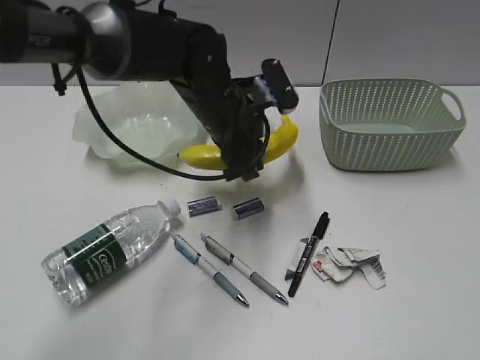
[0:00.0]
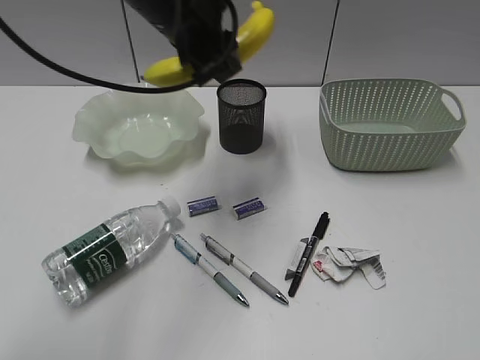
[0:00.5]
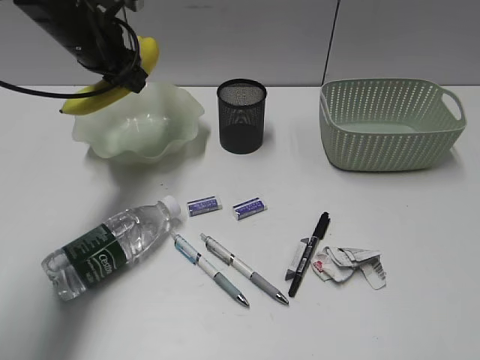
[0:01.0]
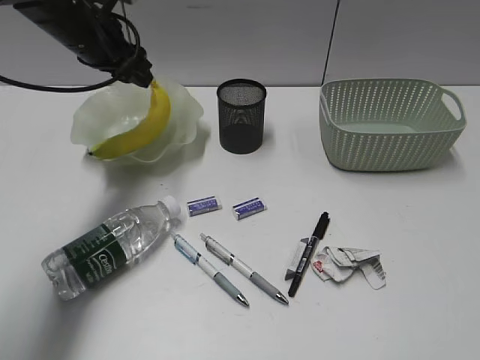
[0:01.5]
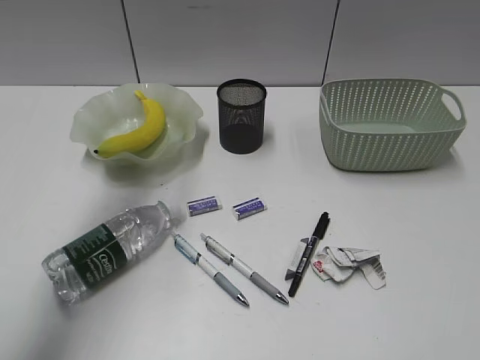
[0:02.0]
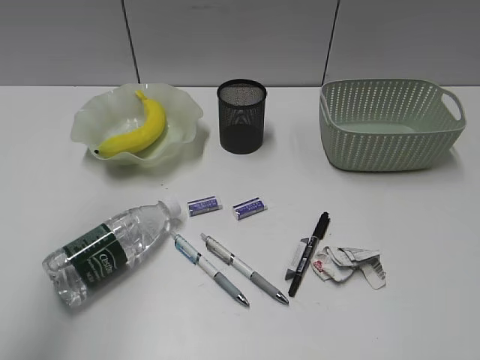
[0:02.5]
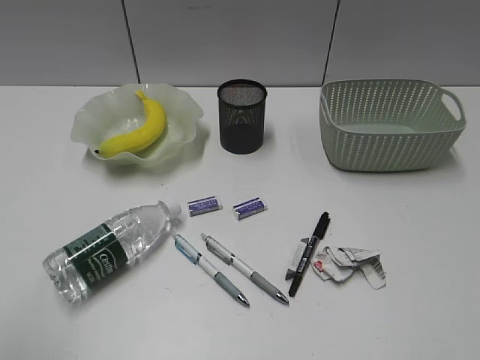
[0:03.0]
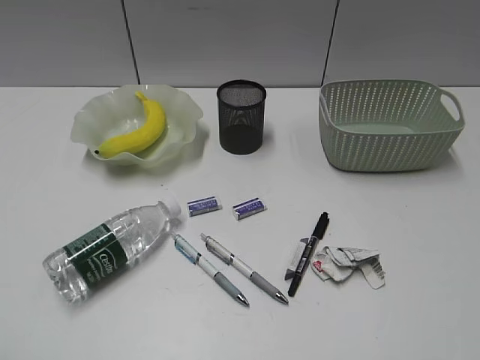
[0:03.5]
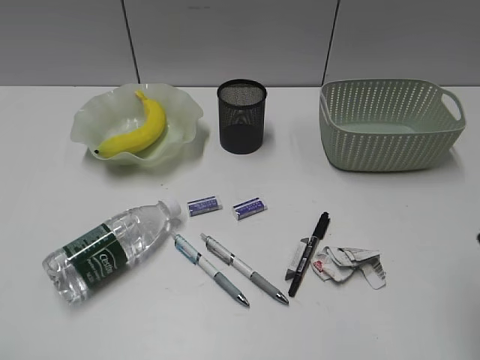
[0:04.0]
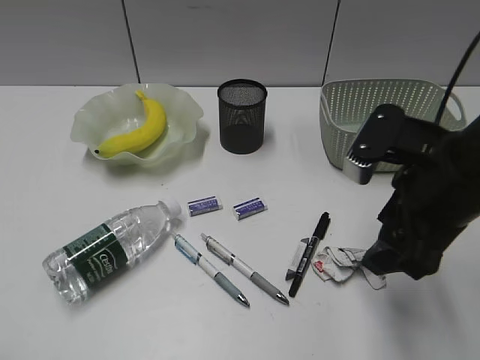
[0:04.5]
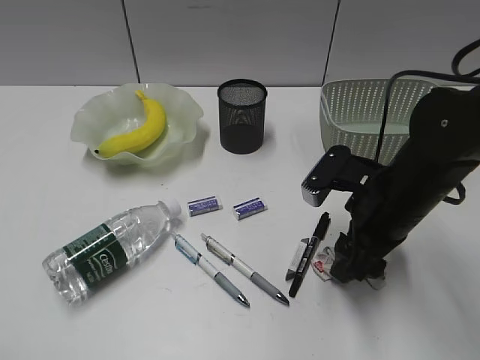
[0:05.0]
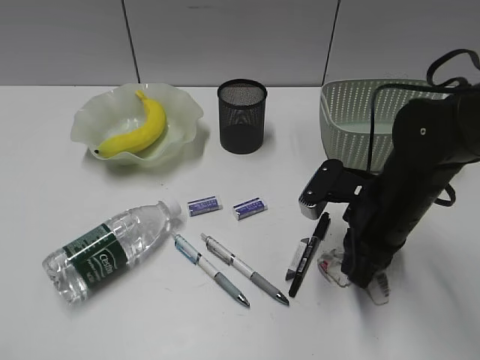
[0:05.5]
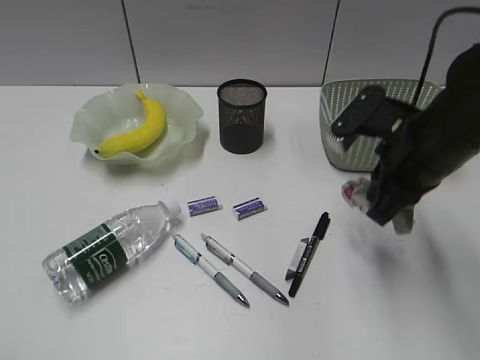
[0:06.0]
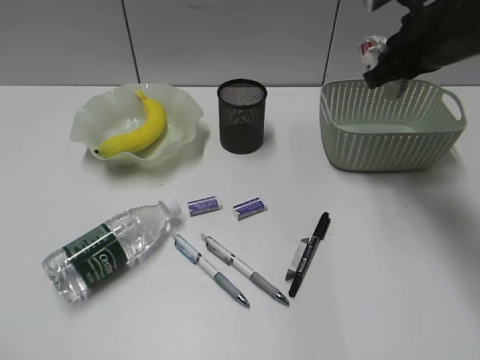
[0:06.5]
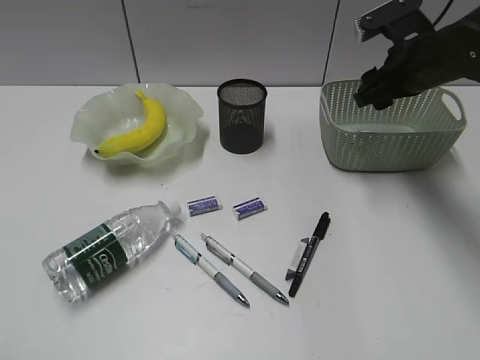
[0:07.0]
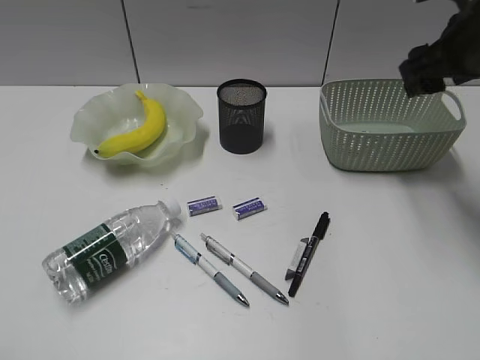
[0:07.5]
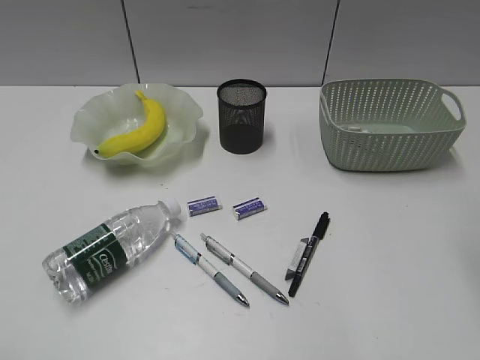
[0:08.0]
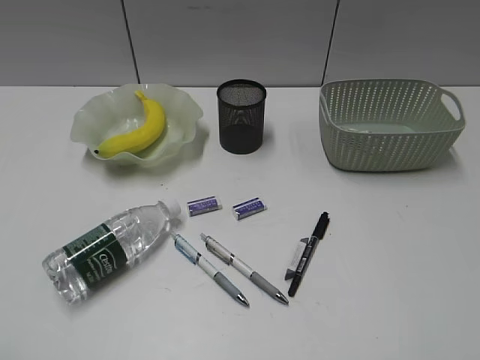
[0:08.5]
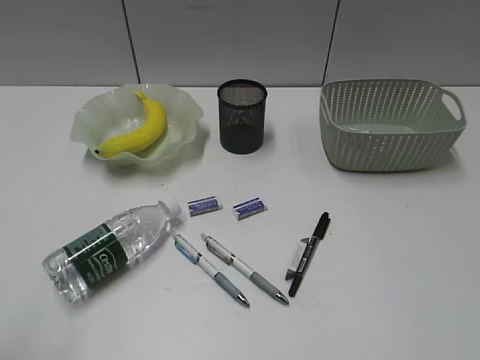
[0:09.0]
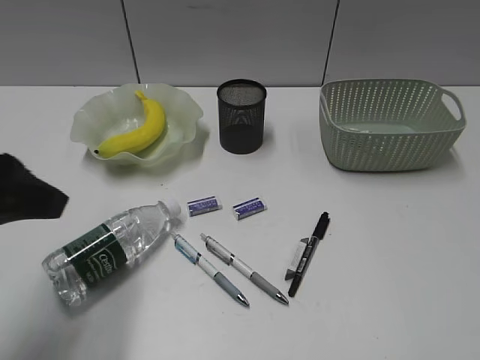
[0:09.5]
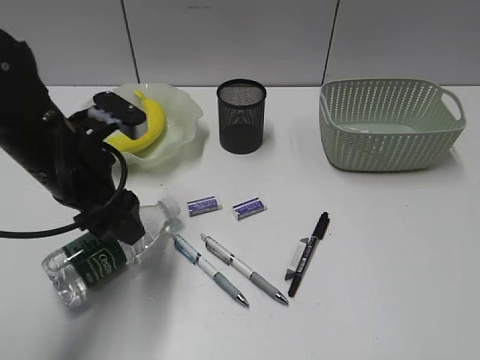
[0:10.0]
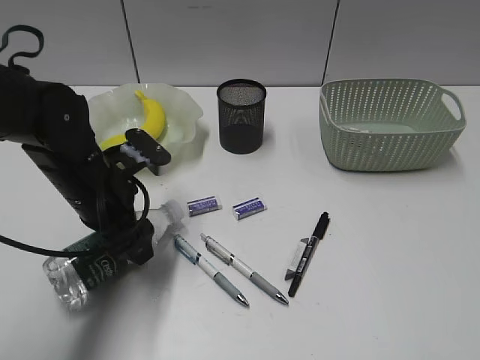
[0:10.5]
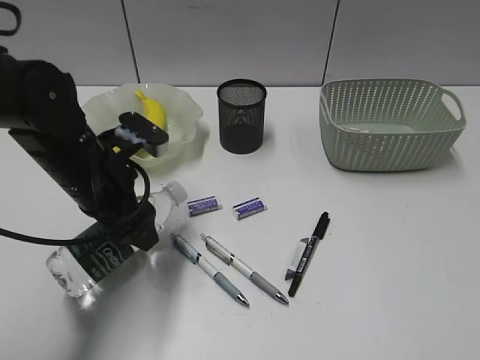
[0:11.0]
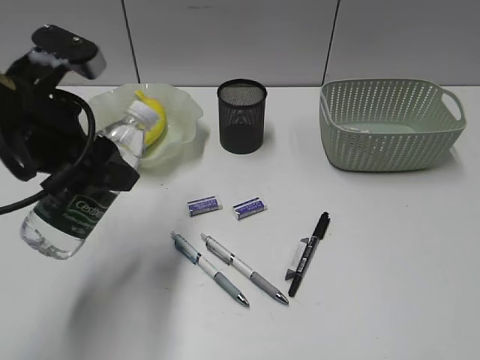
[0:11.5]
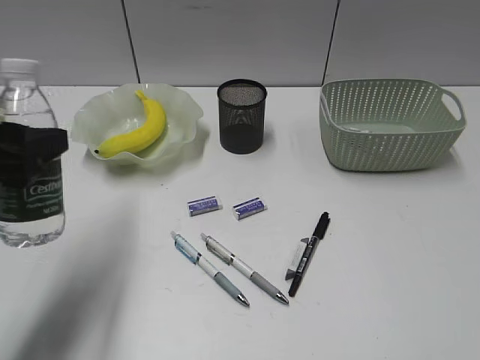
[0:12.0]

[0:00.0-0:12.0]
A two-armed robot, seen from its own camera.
Step, 0:00.0 to 0:01.0: Place the banana in the plate with left gripper.
Step, 0:01.5 to 0:05.5: Grasp the waste paper with right gripper.
Step, 0:06.0 to 0:07.0: Place the waste paper in the basket with right gripper.
Step, 0:07.5 to 0:10.5: Grasp the bottle with left gripper.
0:00.0 to 0:02.0: The left gripper goes up and down, approximately 20 cm each way, reversing 2 times.
0:02.0 to 0:04.0: The left gripper moves backward, about 40 cm, while the right gripper shifts about 15 cm forward and to the left, and opens up.
0:04.0 to 0:06.0: The right gripper travels forward, downward and to the left by approximately 20 cm, and closes up.
0:06.0 to 0:08.0: The right gripper is displaced upward and to the right by roughly 20 cm, moves about 15 cm forward and comes back, and opens up.
0:08.0 to 0:10.0: The right gripper goes roughly 20 cm backward. Meanwhile the left gripper travels forward and to the right by about 30 cm.
0:10.0 to 0:12.0: The left gripper shifts about 10 cm backward and to the left.

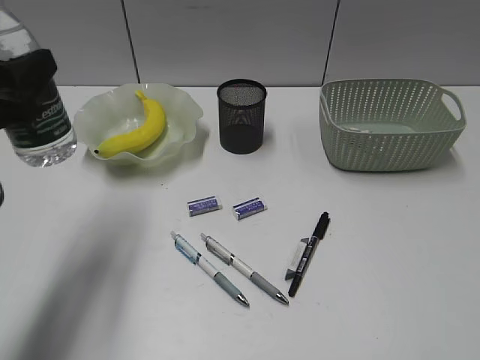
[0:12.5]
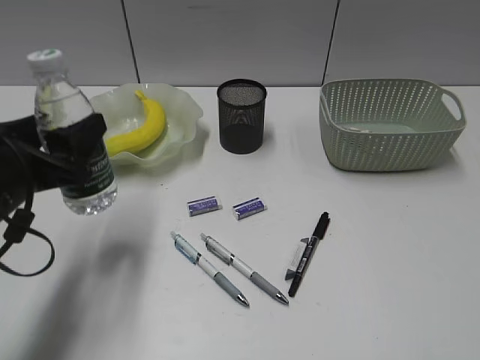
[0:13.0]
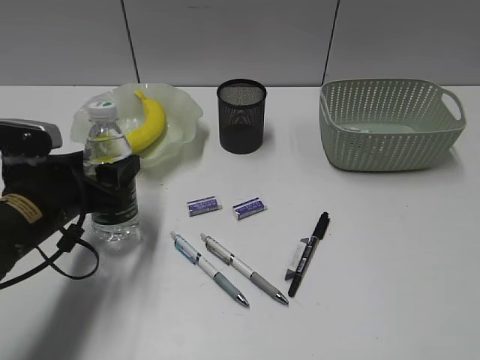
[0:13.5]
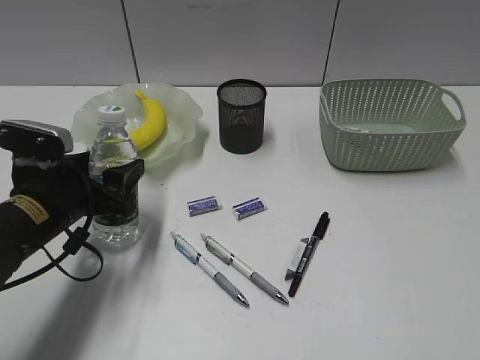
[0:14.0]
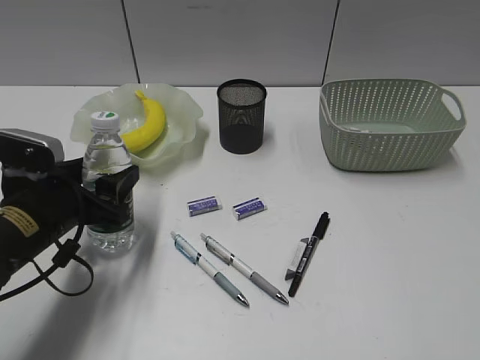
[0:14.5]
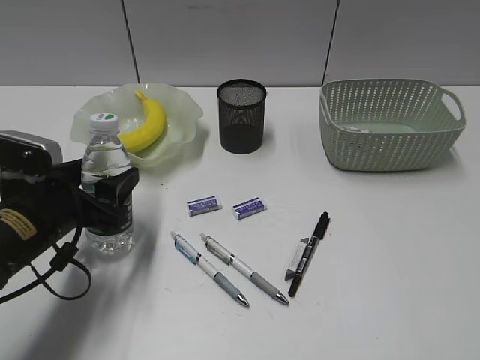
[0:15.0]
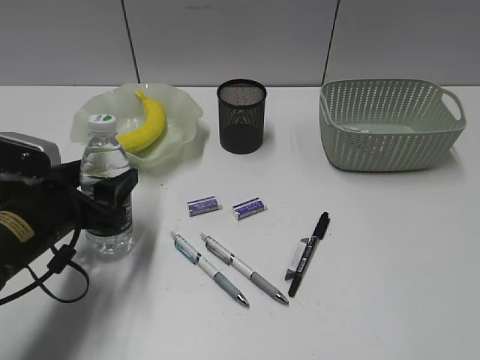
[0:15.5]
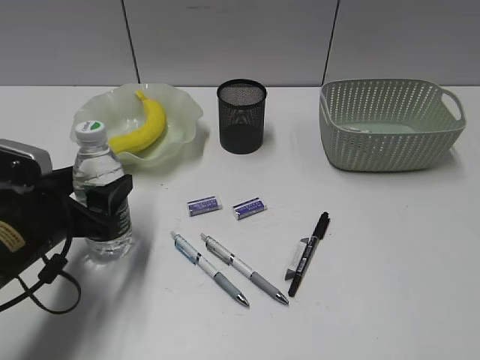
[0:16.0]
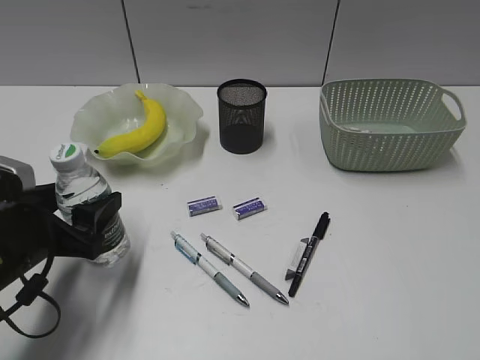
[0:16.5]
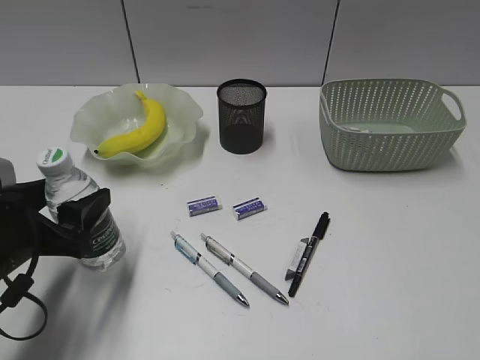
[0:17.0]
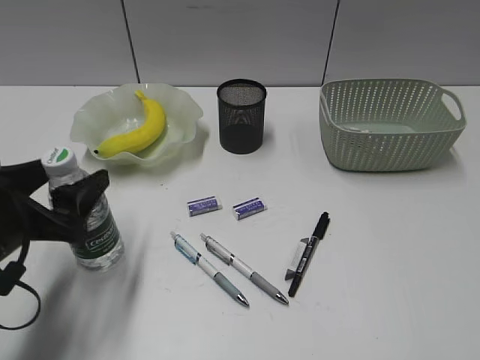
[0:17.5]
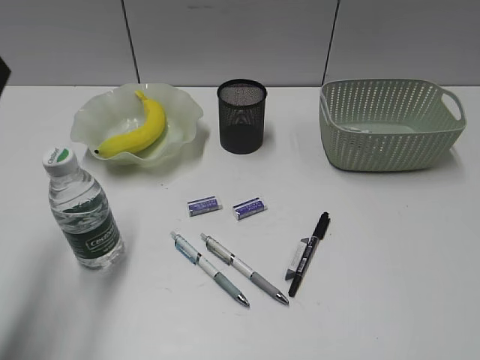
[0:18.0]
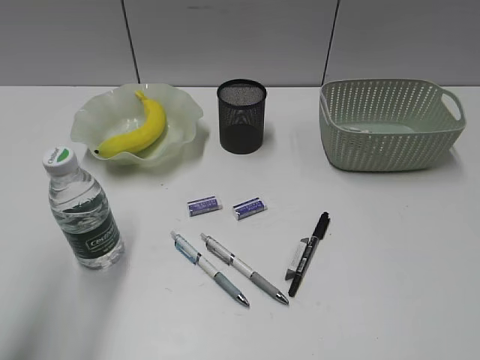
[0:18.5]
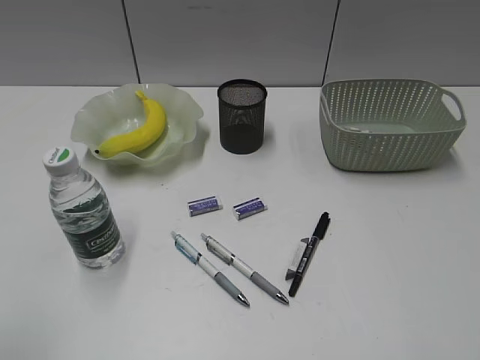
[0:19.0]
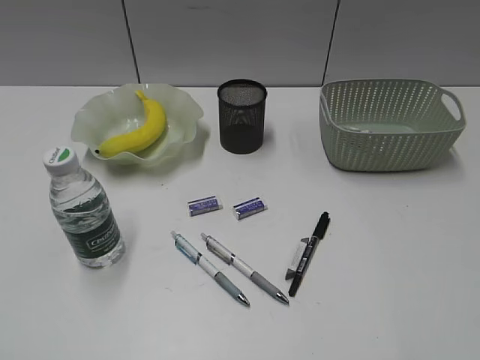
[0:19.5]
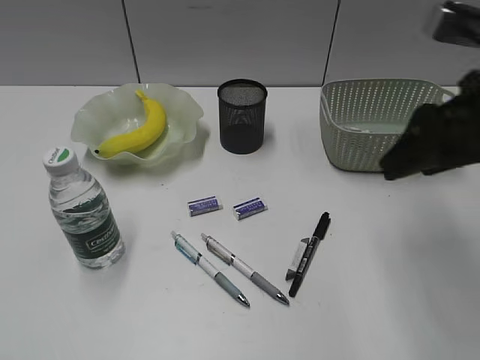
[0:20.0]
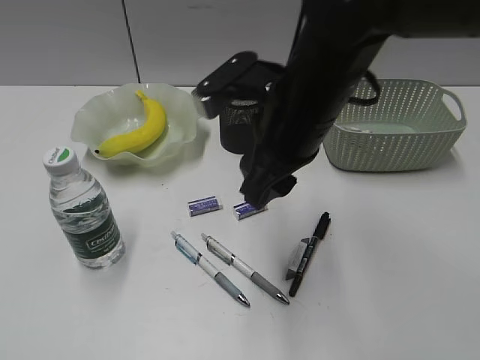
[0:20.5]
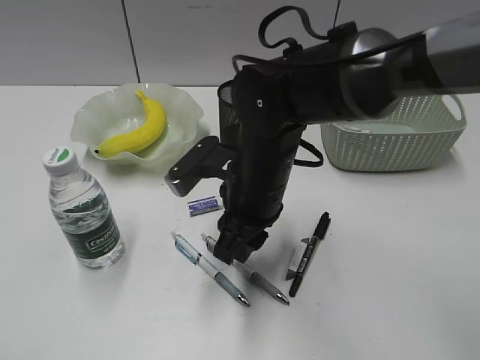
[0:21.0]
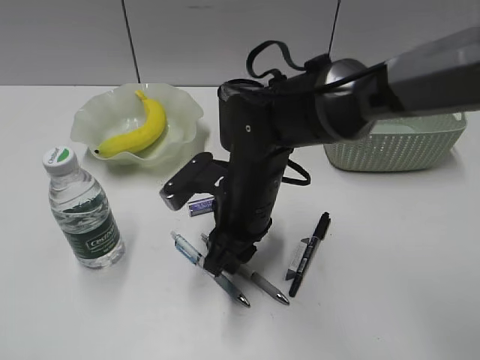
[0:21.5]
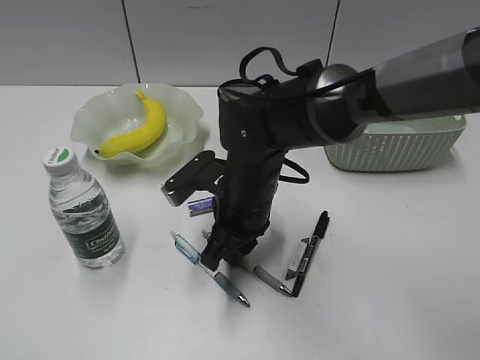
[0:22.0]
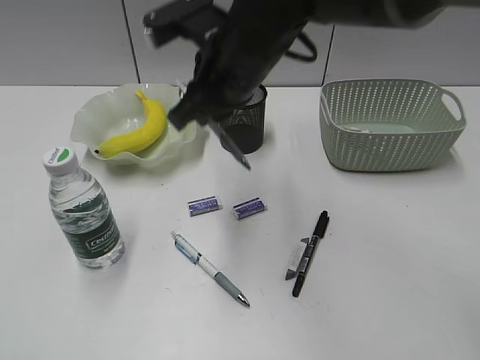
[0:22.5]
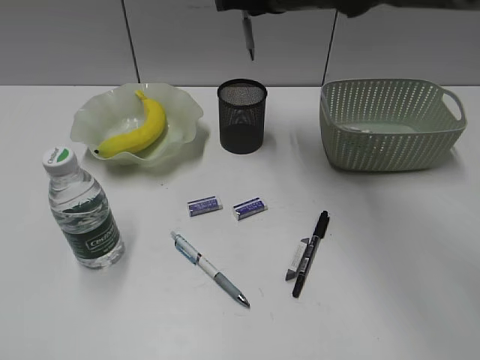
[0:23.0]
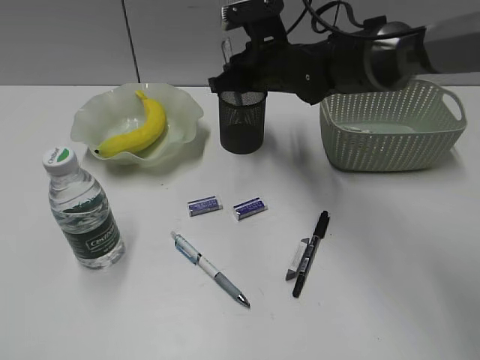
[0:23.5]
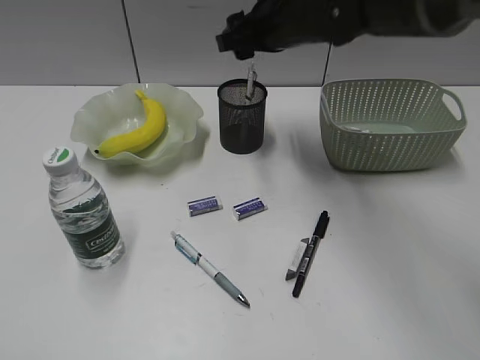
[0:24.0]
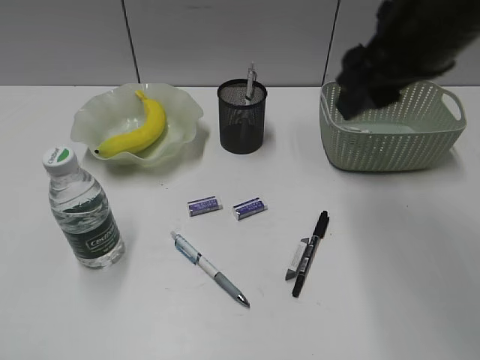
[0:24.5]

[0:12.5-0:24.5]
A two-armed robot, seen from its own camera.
Step, 0:12.5 to 0:17.5: Stand the bottle with left gripper.
Step, 0:18.0 to 0:21.5: Grasp the gray pen with right gripper.
Step, 0:22.0 to 0:23.5: Place the gray pen in pen holder with right gripper.
0:12.5 to 0:14.5: The left gripper heads downward, covering about 15 cm.
0:14.5 to 0:16.5: The grippers stay close to where they were, moving slightly.
0:16.5 to 0:18.5: The left gripper shifts about 20 cm upward.
0:18.5 to 0:20.5: The left gripper travels backward and to the left by roughly 15 cm; the right gripper moves forward and to the left, some 40 cm.
0:20.5 to 0:22.5: The right gripper travels to the left by approximately 5 cm, moves roughly 15 cm downward and comes back, and closes its fingers.
0:22.5 to 0:24.5: The right gripper travels to the right and upward by roughly 15 cm, reaches some 10 cm forward, then returns, and opens.

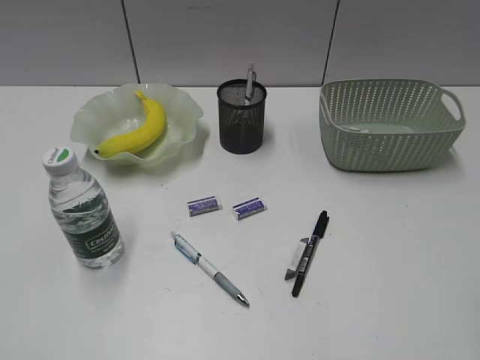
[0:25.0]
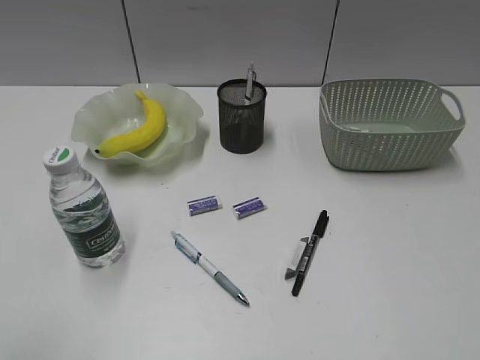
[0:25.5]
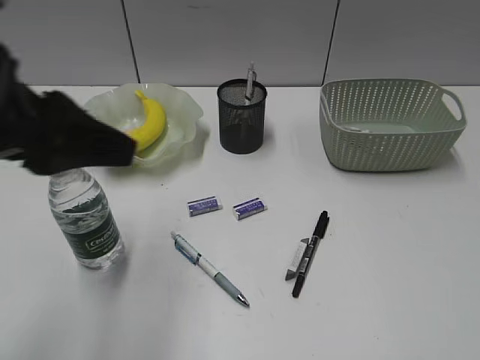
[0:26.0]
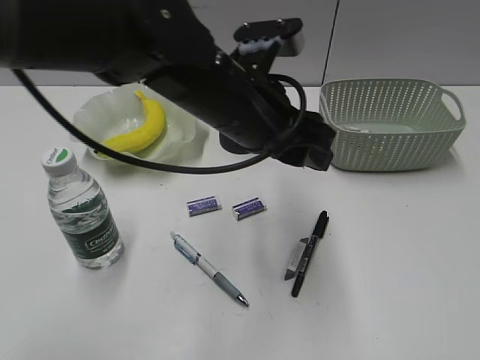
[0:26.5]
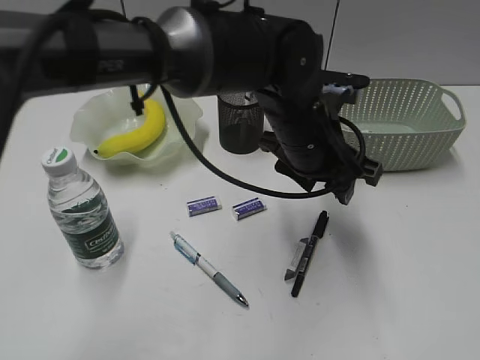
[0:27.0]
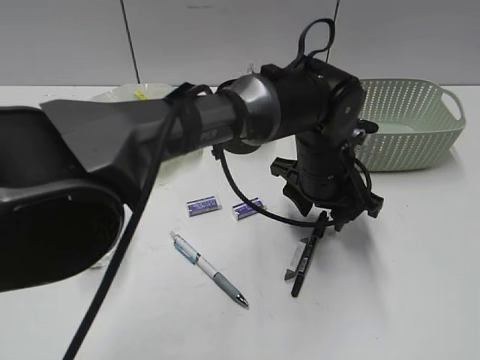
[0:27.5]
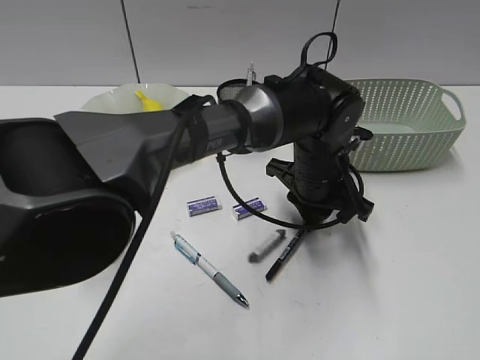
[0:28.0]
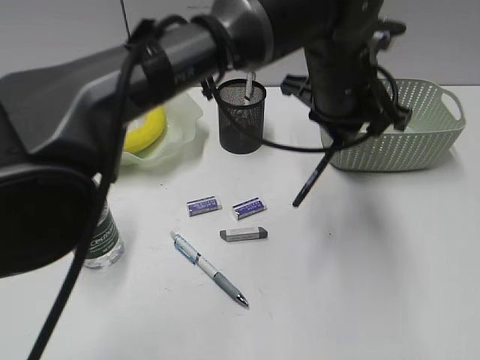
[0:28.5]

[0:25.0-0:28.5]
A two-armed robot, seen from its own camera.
Step, 0:25.0 to 0:28.0: Grasp the black pen with left gripper.
0:25.0 to 0:27.0: The left gripper shifts roughly 50 cm to the right and forward. Meanwhile the right gripper travels backward and to the right by approximately 10 cm.
0:27.0 to 0:28.5: The left gripper shifts by about 5 cm, and closes its fingers.
